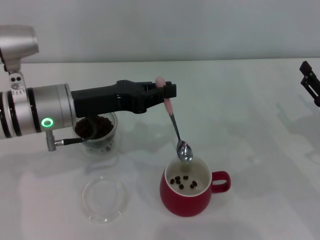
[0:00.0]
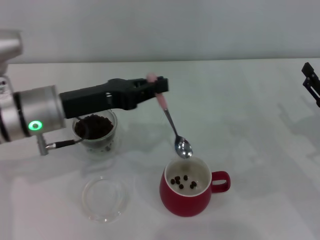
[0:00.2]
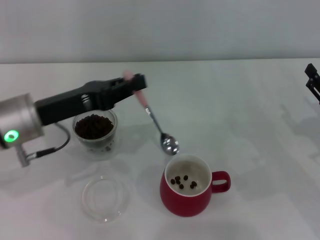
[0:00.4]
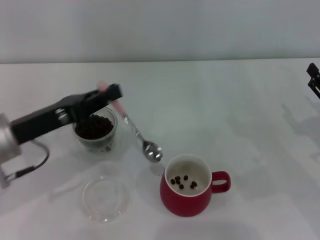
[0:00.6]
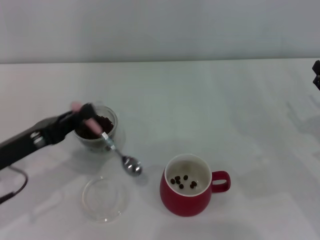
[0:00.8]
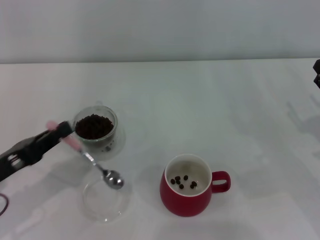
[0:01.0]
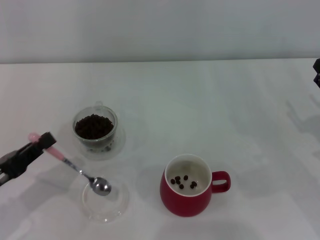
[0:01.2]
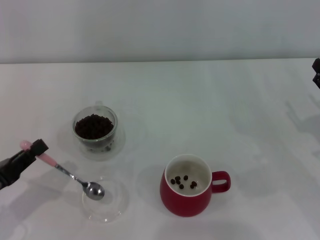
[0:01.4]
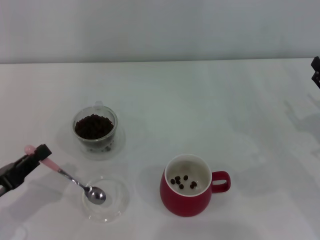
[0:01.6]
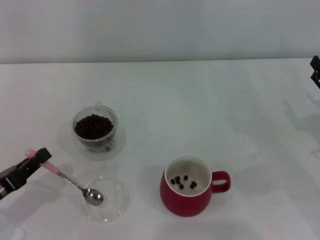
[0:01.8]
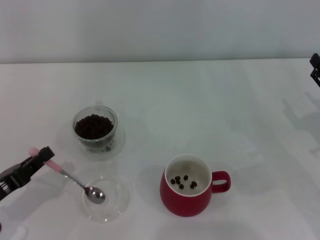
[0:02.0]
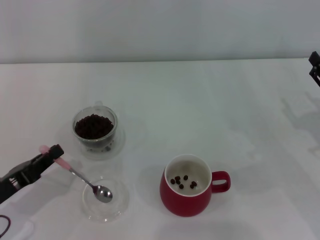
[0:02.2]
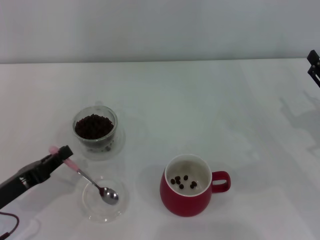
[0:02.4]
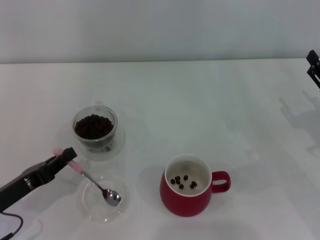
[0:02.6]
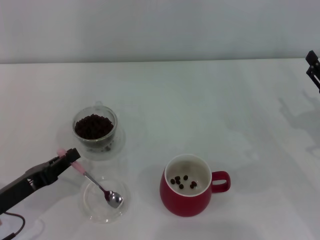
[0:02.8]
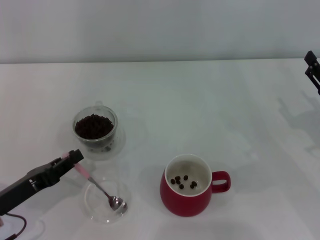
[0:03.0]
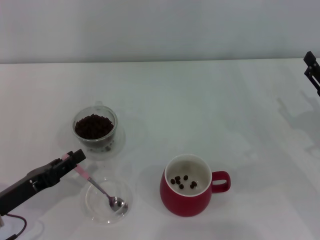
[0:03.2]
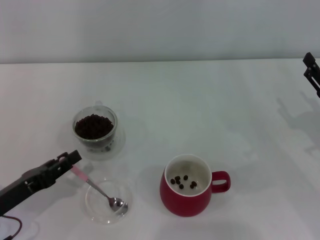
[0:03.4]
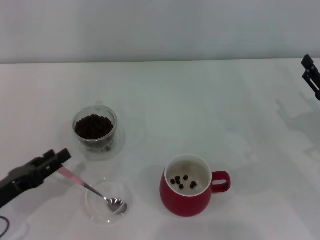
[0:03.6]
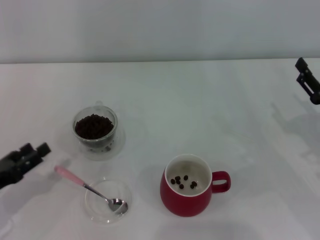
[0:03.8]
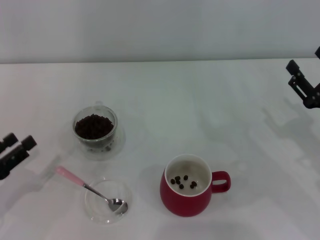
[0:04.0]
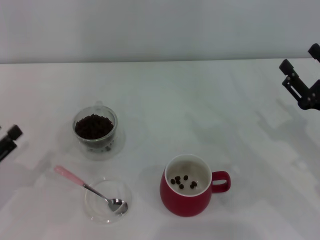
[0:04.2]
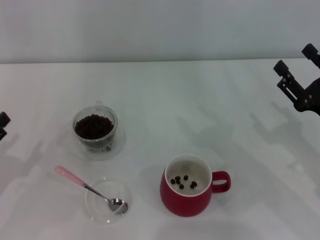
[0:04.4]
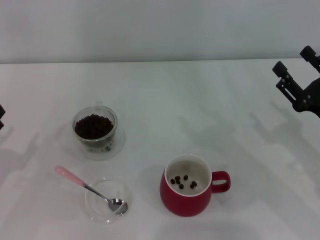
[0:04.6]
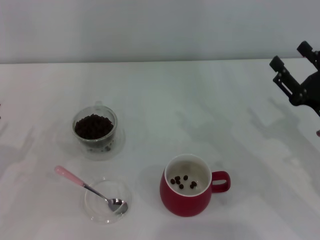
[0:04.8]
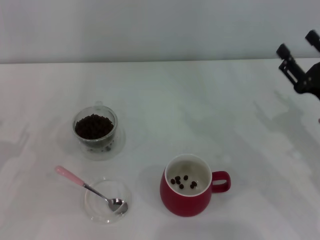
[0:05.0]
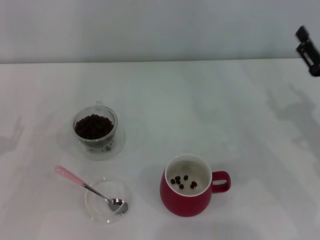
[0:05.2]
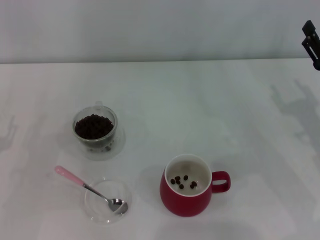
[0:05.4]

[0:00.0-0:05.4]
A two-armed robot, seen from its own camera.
Task of the whole recording: Use a pink spoon to take out the coffee beans from the glass and pour them into the red cup.
0:00.0 to 0:01.4: The left gripper heads to the left, backward and downward, covering approximately 20 cm.
0:01.4 to 0:02.8: The grippers stay close to where they were, moving slightly.
0:02.8 to 0:04.0: The left gripper moves to the left, some 5 cm, and opens its fingers.

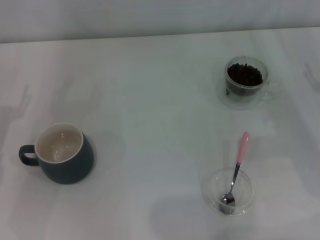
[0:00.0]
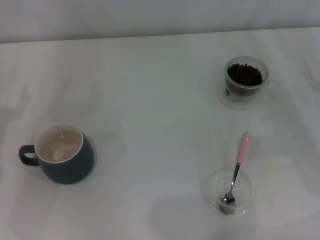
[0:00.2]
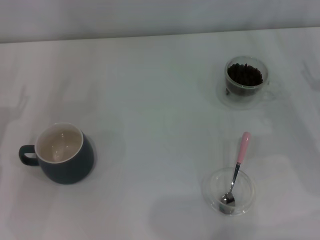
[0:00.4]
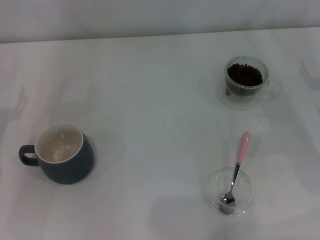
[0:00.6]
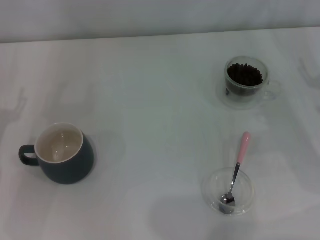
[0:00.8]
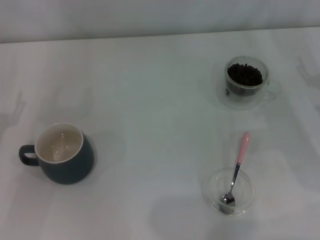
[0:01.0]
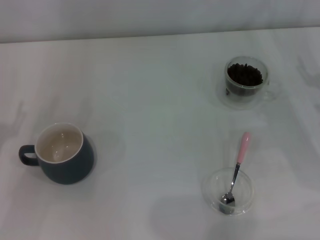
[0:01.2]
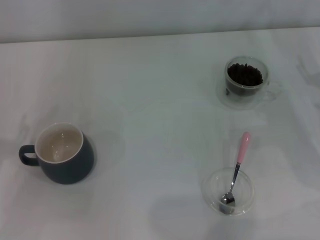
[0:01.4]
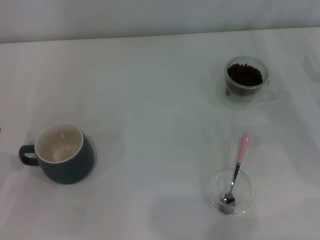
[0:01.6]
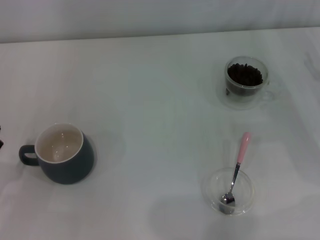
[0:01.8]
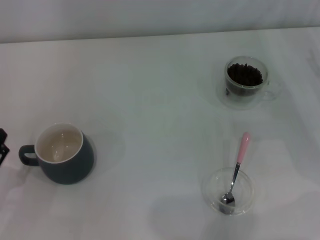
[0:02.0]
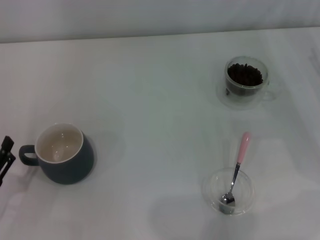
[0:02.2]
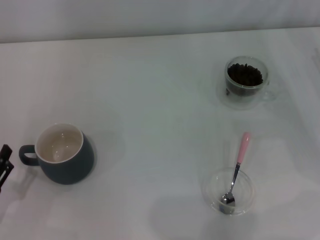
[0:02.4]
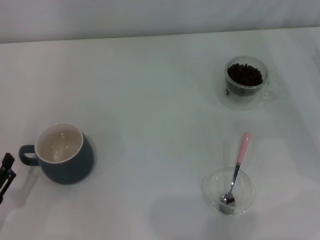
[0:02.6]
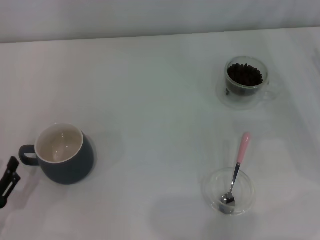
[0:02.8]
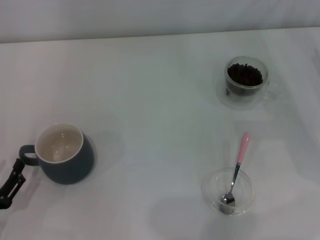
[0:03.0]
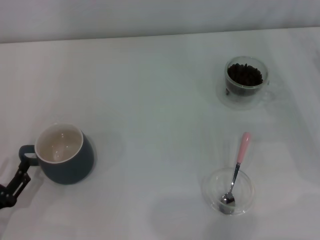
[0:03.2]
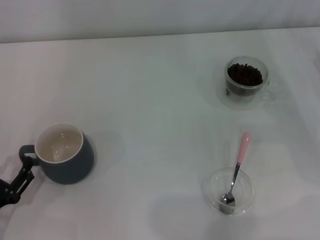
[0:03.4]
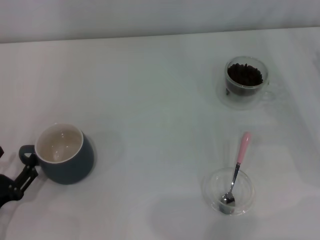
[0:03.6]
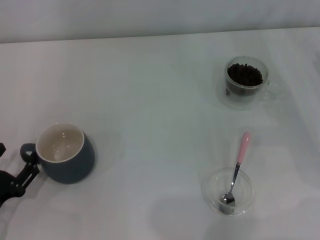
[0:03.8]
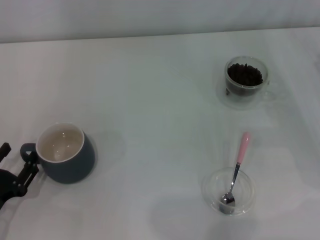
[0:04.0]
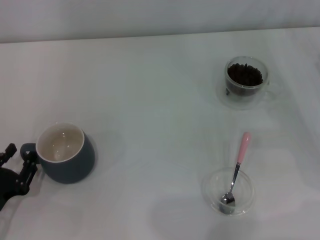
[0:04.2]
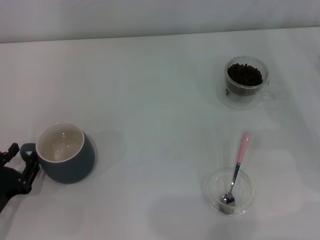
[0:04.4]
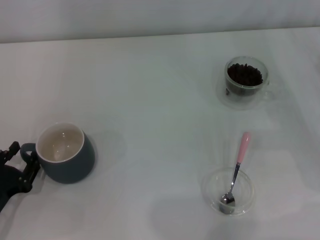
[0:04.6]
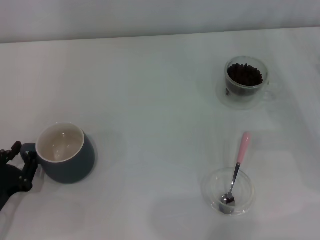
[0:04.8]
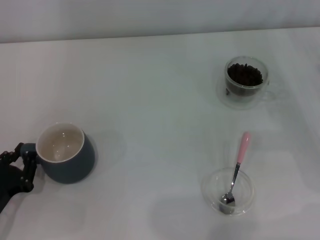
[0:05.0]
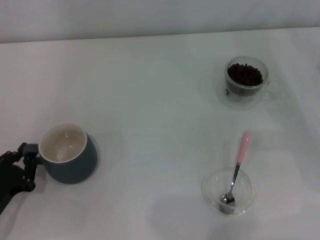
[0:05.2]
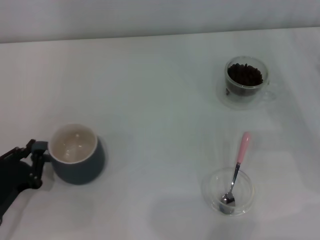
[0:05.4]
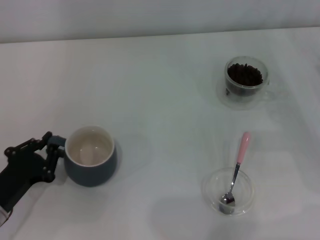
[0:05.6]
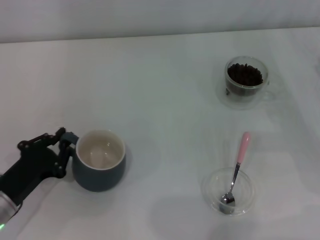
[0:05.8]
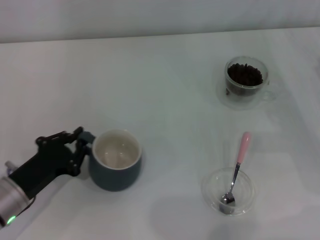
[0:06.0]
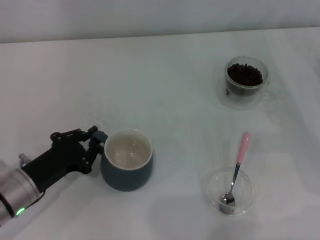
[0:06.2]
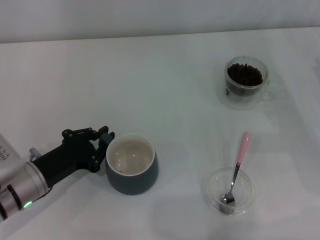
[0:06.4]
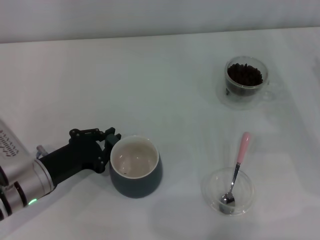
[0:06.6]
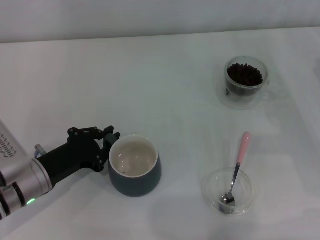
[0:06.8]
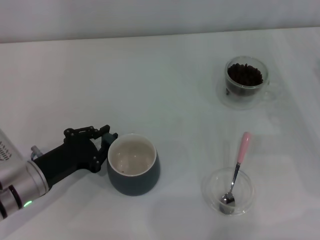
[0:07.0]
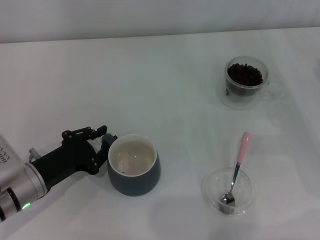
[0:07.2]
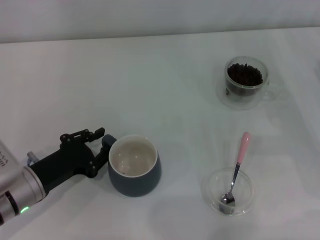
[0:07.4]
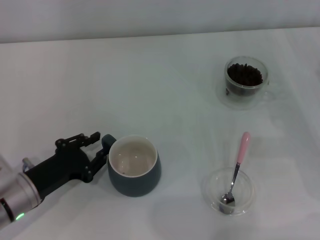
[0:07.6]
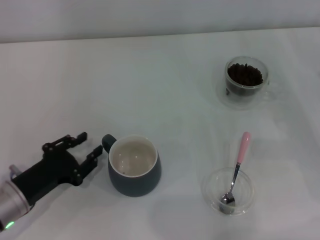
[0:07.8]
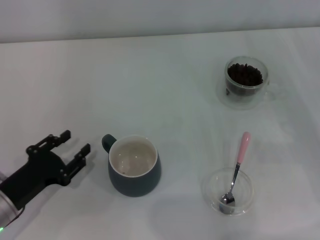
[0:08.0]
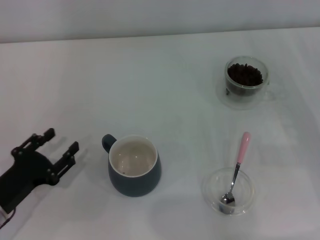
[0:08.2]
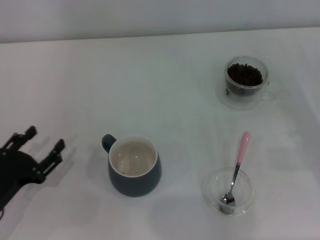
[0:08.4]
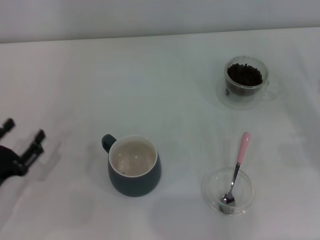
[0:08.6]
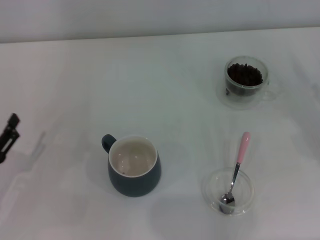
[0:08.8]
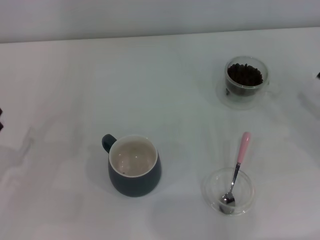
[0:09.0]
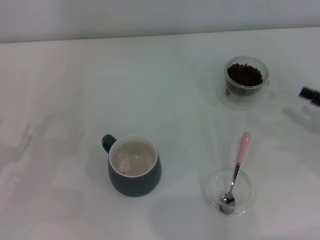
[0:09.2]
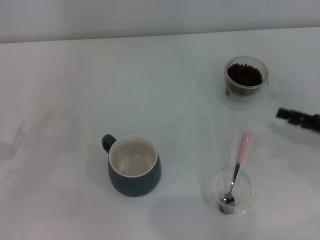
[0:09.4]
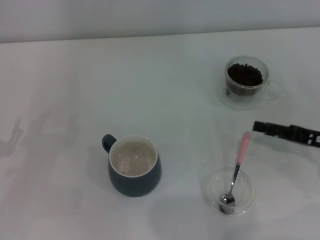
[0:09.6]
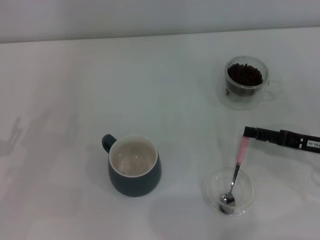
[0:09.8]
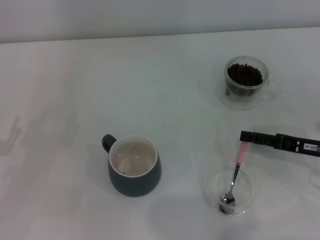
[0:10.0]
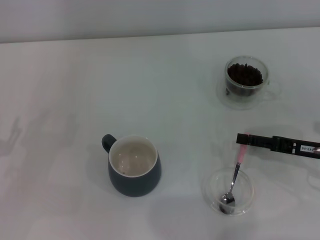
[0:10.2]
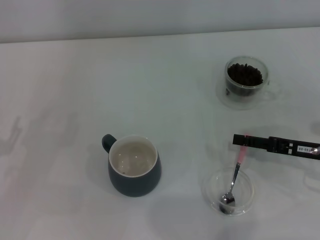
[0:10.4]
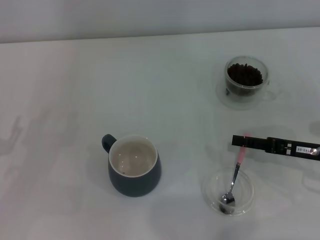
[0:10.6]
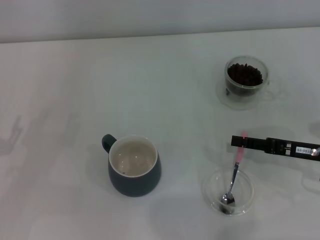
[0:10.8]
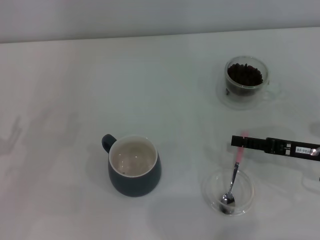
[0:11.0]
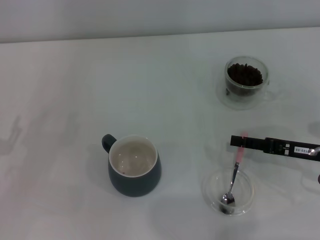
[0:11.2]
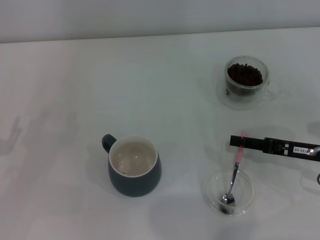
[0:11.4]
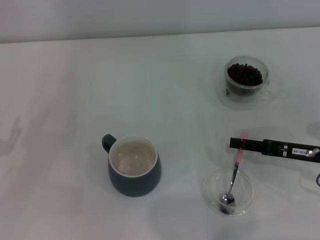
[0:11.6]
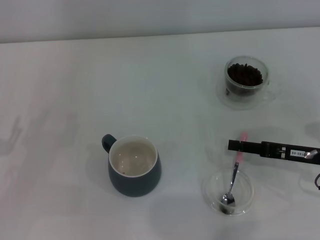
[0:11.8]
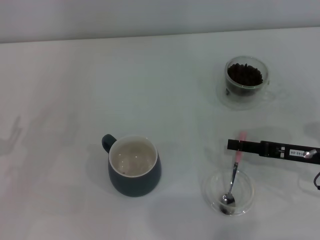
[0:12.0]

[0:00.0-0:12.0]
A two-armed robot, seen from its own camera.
Task of the whole recording: Use a pink spoon to take out the coffee beans from the glass and pour them into the gray cup.
Step, 0:00.0 to 0:08.0: Move the cup to the center of view with the left gripper.
0:01.6 to 0:03.0: The left gripper shifts by roughly 5 cm.
0:03.0 to 0:04.4: The left gripper closes up.
0:04.4 to 0:06.0: The left gripper changes place by approximately 5 cm, and closes its fingers.
0:06.0 to 0:07.6: The grippers make only small movements.
0:07.6 to 0:09.0: The left gripper heads to the left, covering approximately 10 cm, and opens.
0:09.0 to 0:10.4: The right gripper shifts roughly 10 cm to the left.
0:10.4 to 0:12.0: The right gripper closes up.

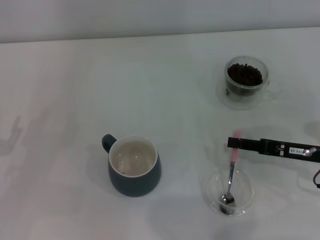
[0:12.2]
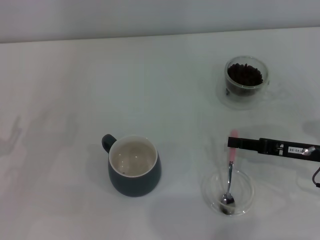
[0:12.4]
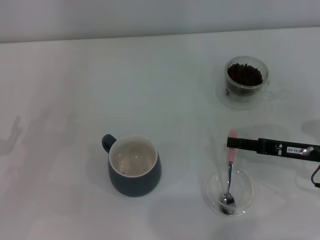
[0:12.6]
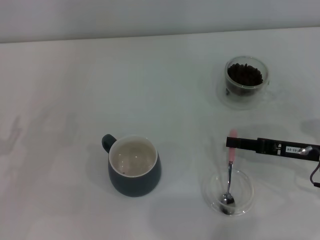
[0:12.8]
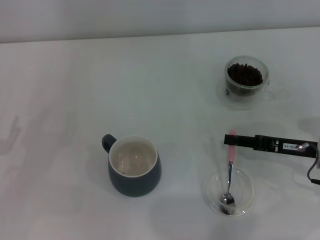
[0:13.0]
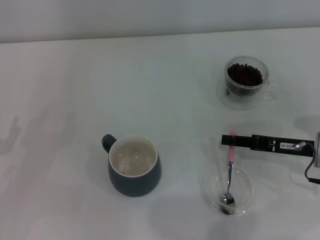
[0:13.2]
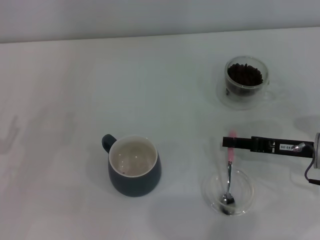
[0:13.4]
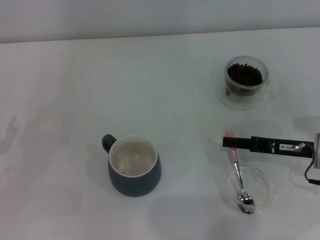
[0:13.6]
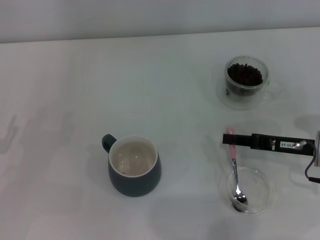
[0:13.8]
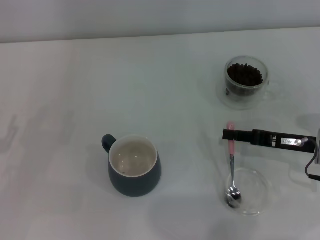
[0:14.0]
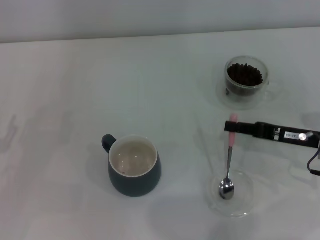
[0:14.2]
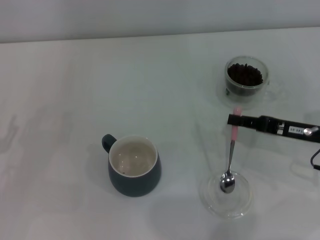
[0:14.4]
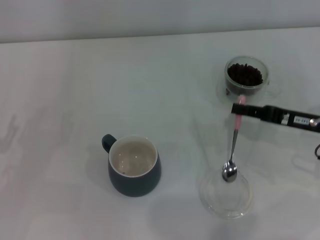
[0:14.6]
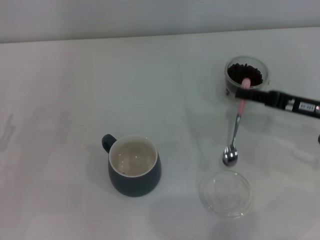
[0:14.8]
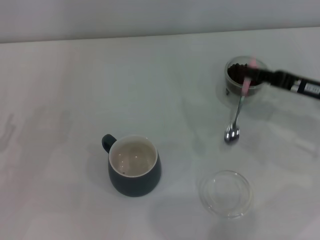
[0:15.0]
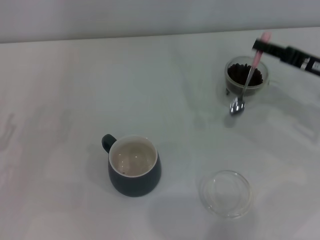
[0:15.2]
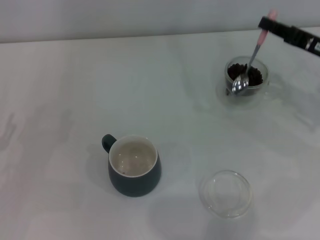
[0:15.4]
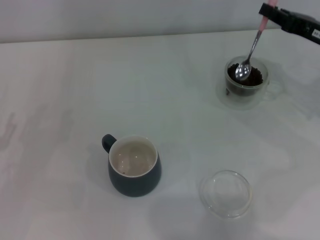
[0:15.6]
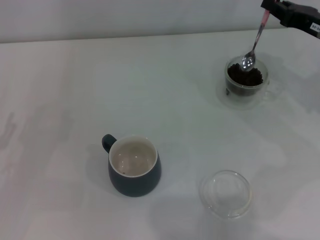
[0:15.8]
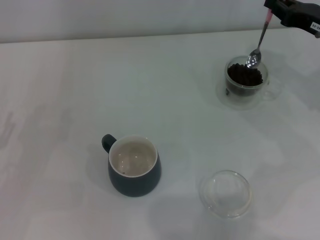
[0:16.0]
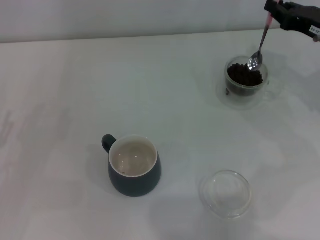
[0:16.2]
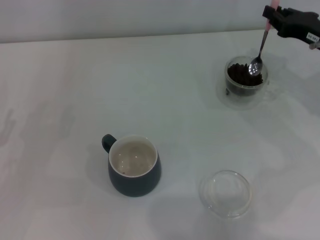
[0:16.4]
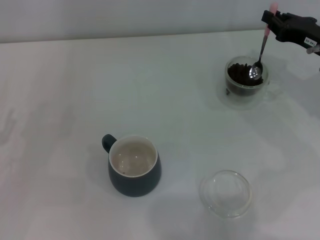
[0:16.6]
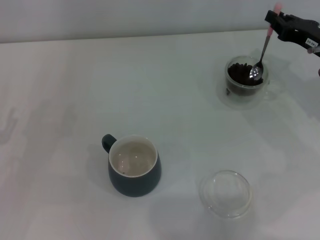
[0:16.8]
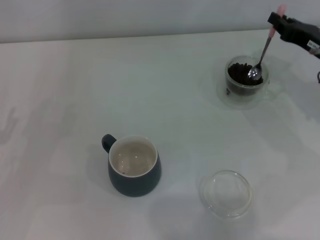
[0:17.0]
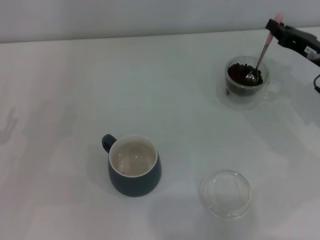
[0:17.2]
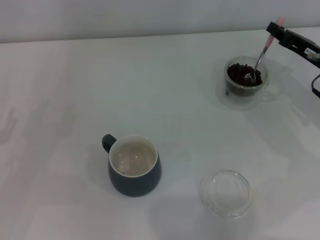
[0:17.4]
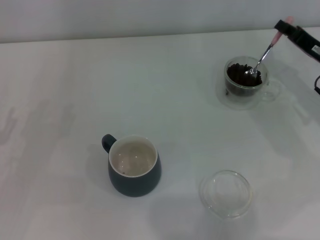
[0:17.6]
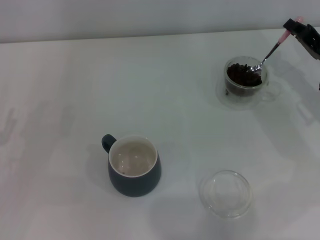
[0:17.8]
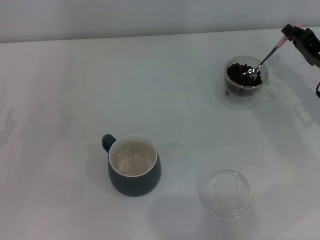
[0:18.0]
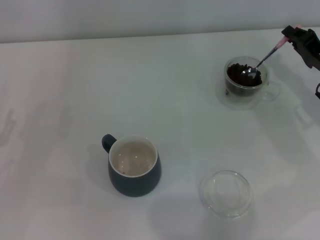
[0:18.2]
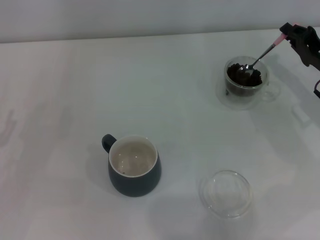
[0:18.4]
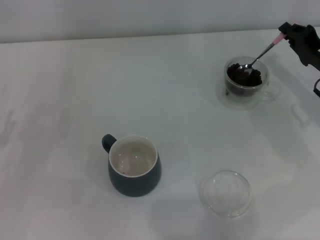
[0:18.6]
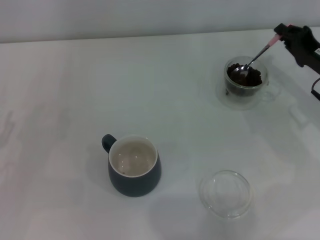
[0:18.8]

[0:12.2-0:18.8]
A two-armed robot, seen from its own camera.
Task of the whole recording: Use a pink spoon to take out the coffee beans from the glass and pour them into the gray cup.
Step, 0:12.2 to 0:14.8: Pick up the spoon with the right gripper.
0:12.2 to 0:13.8: The right gripper closes its fingers.
0:13.8 to 0:15.4: The right gripper heads upward and forward, covering roughly 10 cm.
